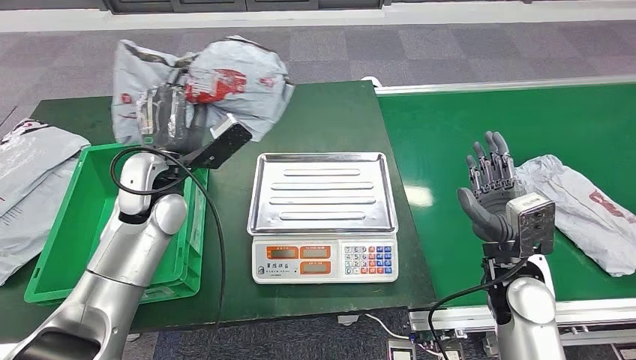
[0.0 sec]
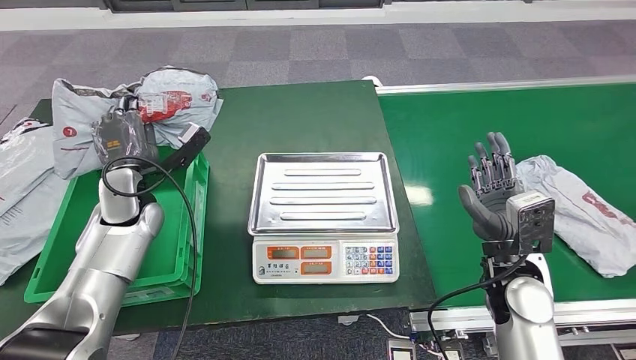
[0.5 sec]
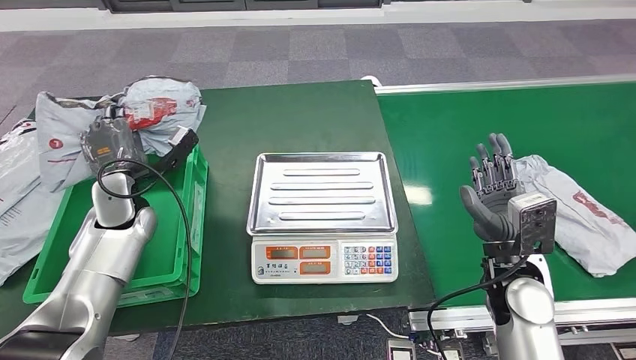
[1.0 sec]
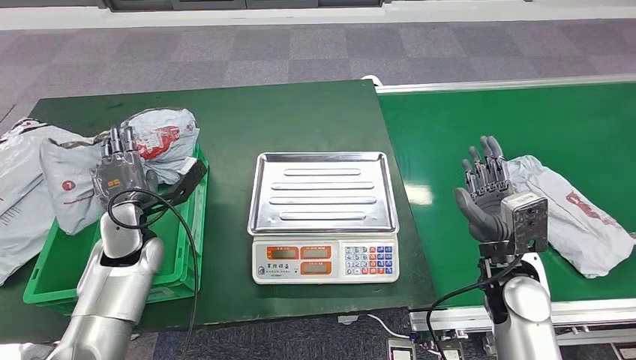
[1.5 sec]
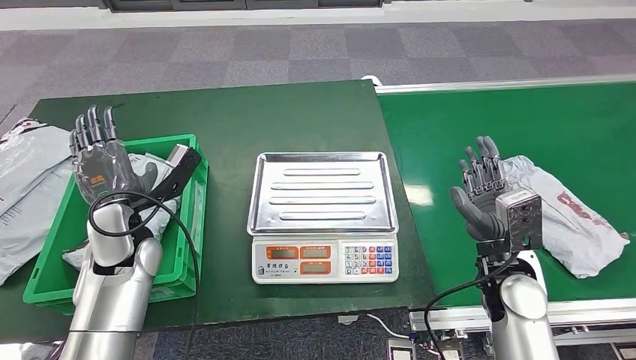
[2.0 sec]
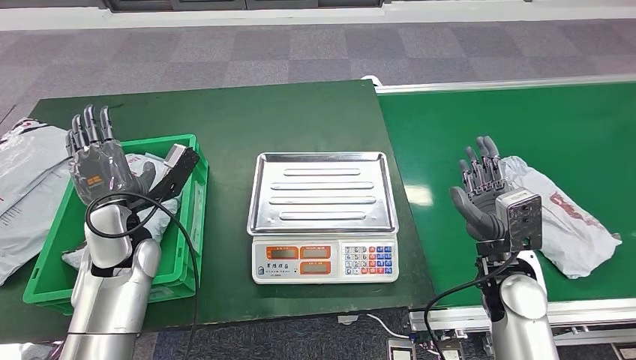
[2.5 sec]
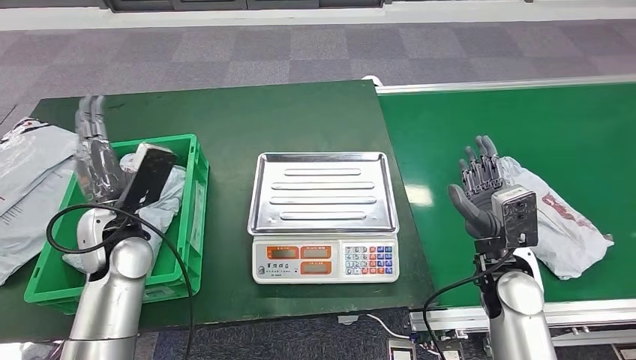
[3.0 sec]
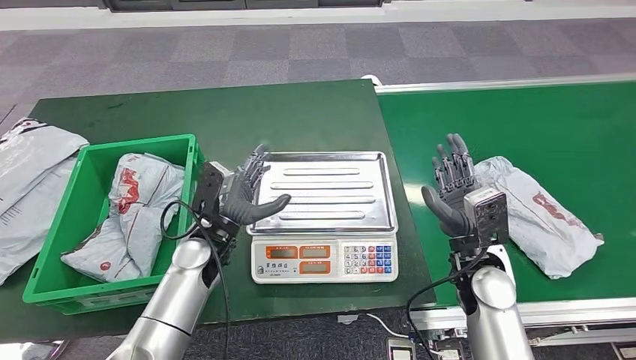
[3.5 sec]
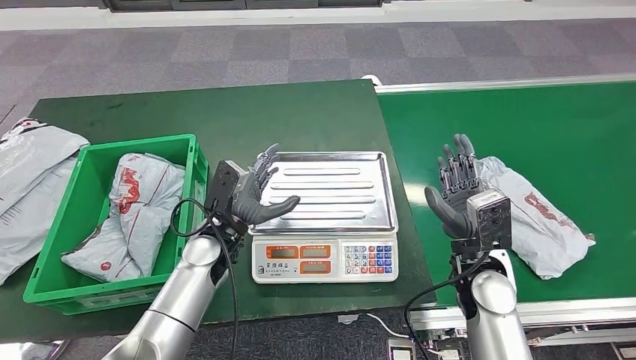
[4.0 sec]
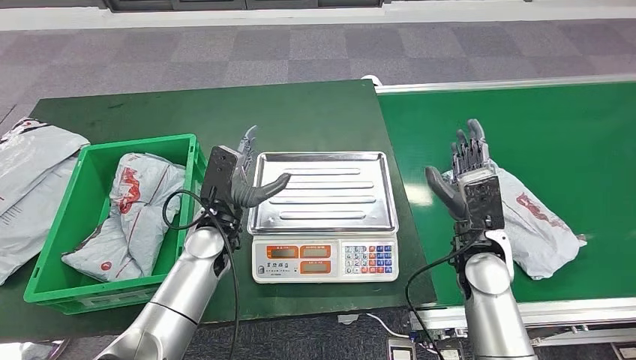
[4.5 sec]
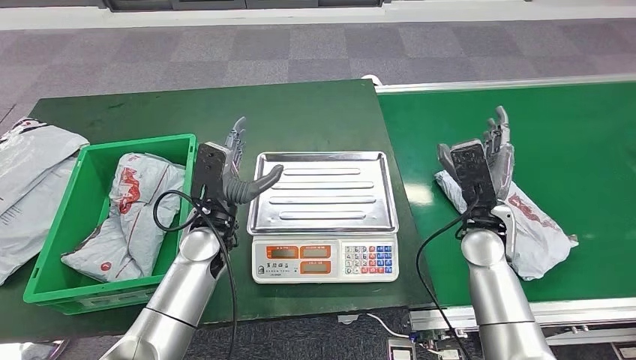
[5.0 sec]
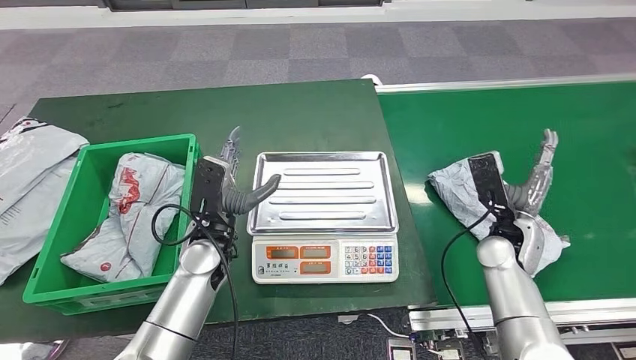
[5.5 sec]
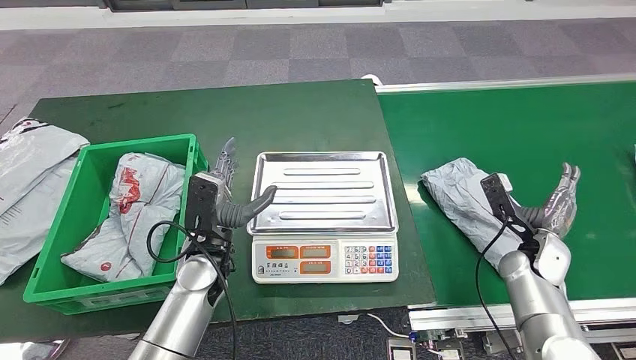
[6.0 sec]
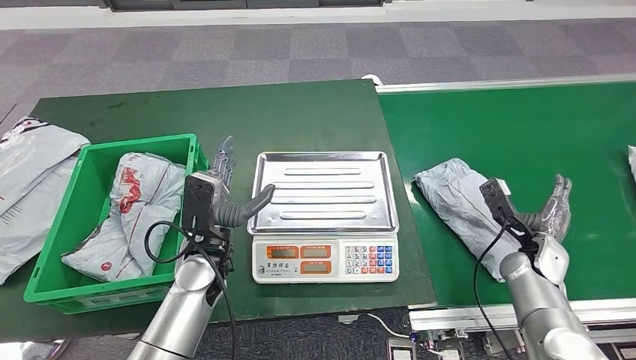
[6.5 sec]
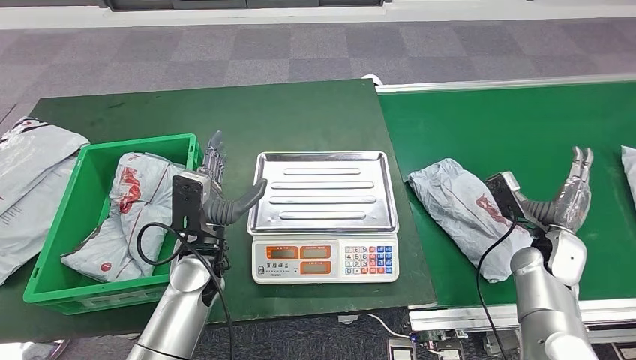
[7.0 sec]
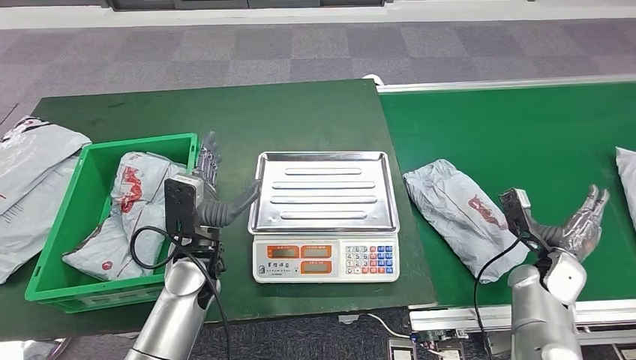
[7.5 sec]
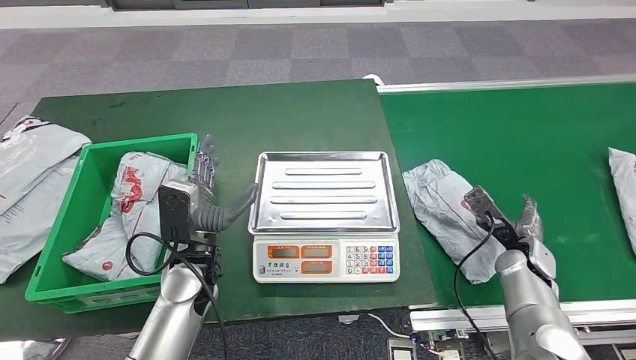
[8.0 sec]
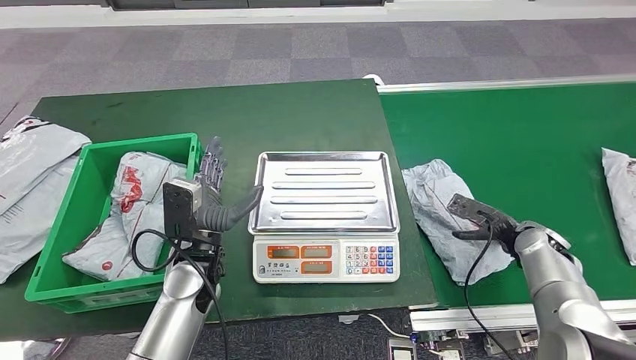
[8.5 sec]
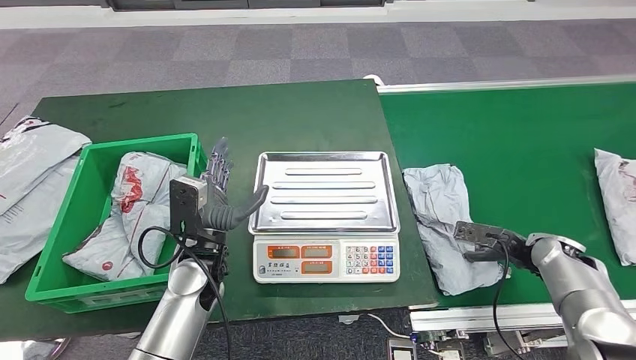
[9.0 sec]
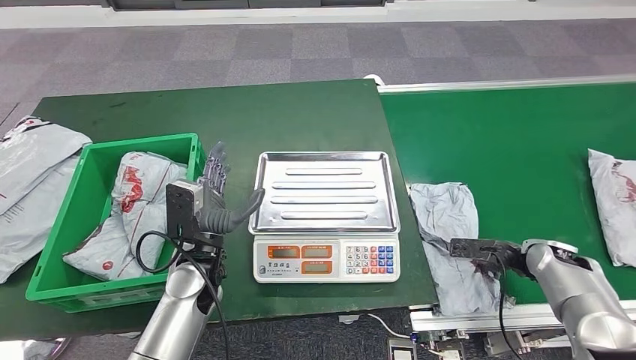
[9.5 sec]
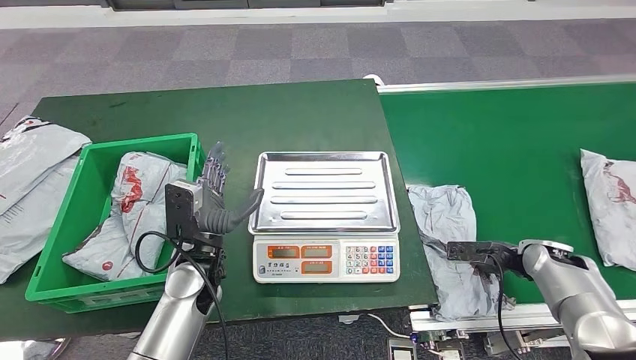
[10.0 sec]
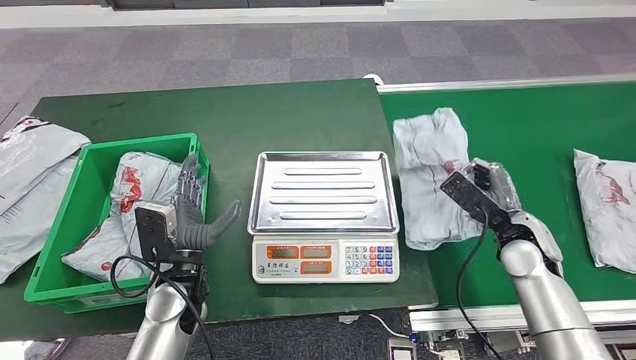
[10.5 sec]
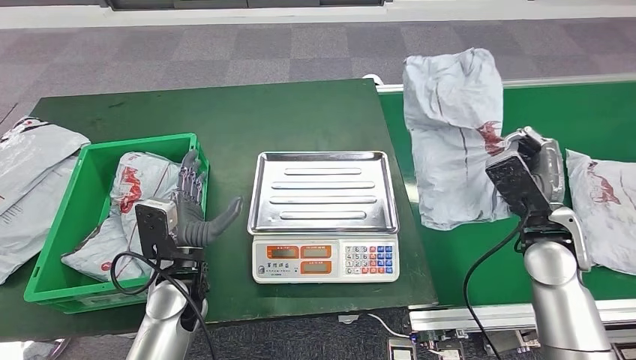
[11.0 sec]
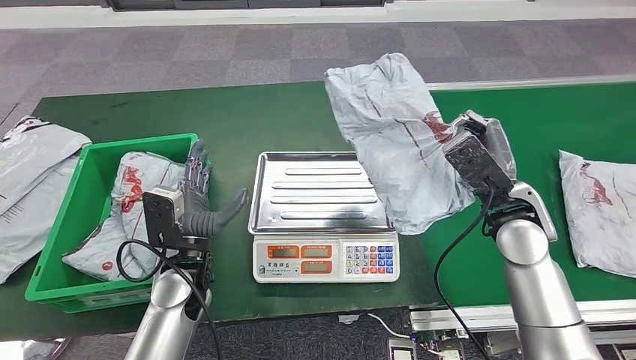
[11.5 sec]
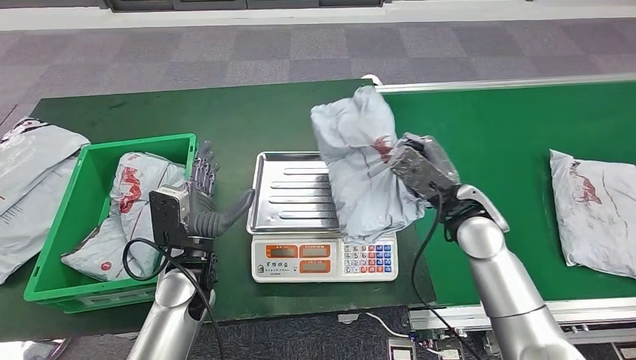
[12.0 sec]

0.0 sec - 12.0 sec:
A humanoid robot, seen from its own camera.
4.0 sec - 6.0 sec: The right hand travels to the right and downward by some 15 cm.
8.0 sec - 10.0 sec: The right hand travels to the right by some 5 cm.

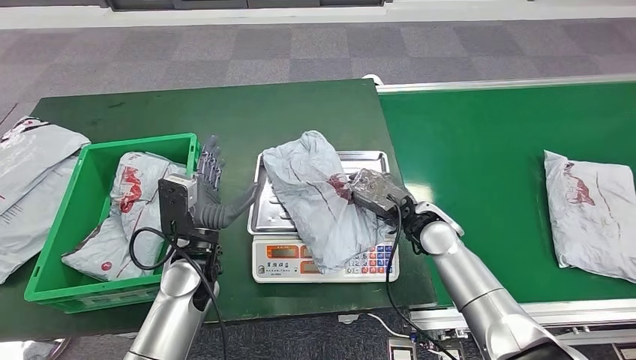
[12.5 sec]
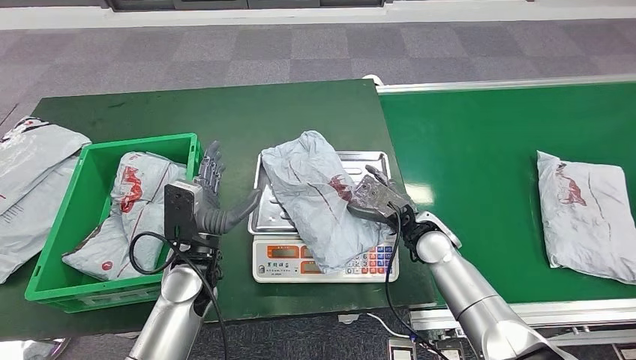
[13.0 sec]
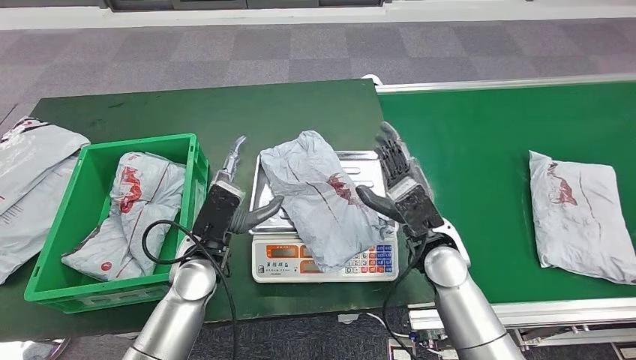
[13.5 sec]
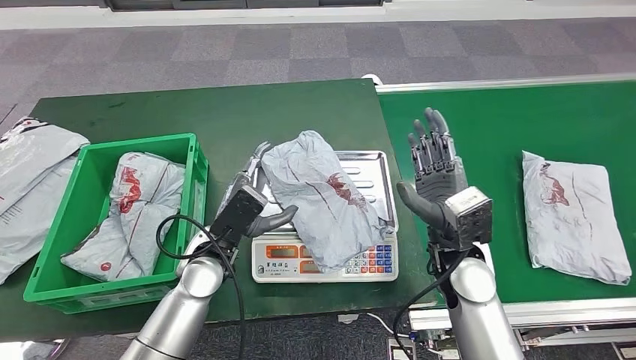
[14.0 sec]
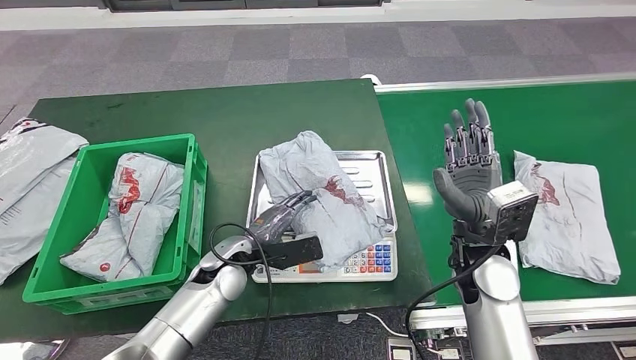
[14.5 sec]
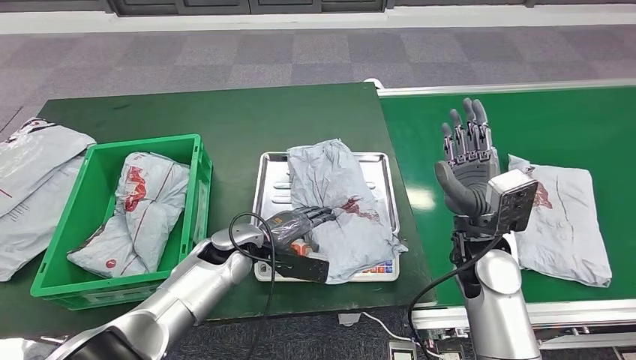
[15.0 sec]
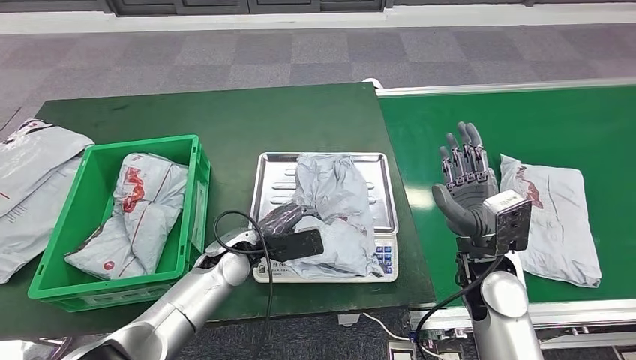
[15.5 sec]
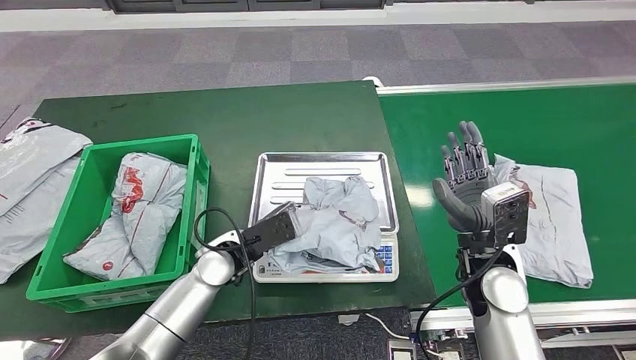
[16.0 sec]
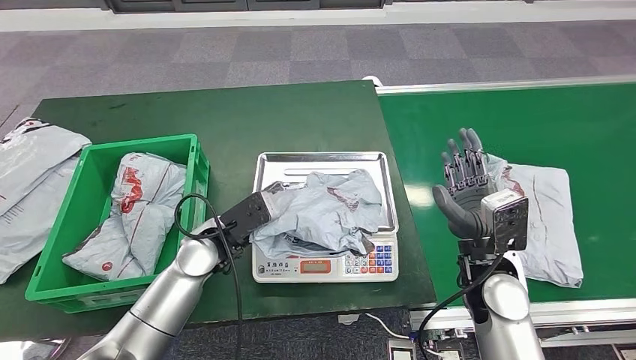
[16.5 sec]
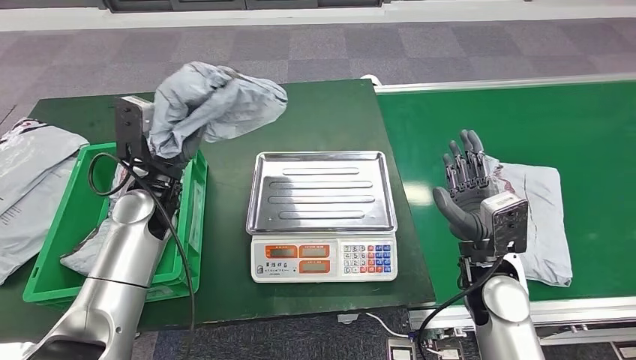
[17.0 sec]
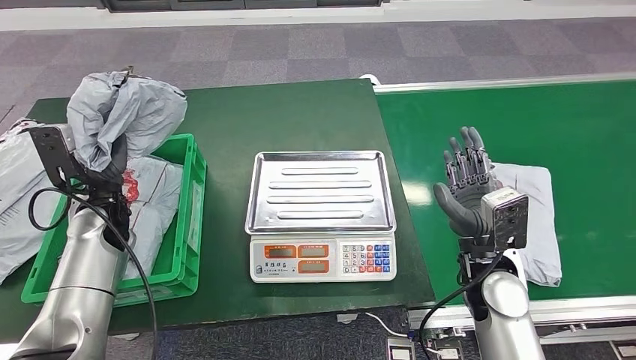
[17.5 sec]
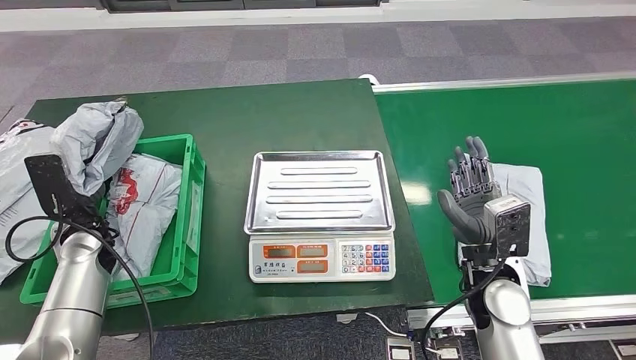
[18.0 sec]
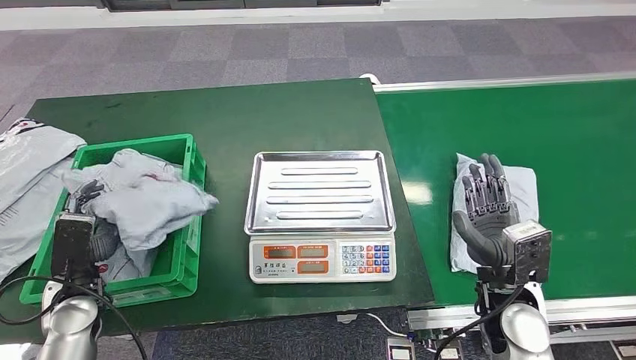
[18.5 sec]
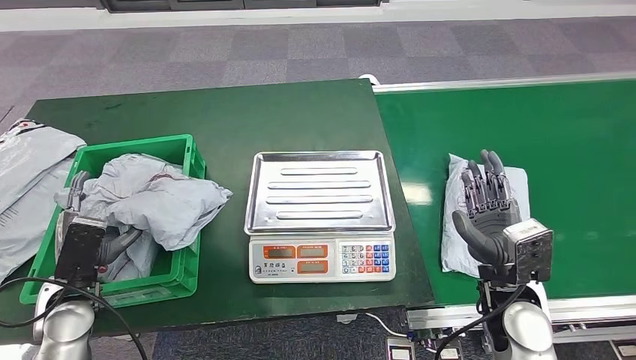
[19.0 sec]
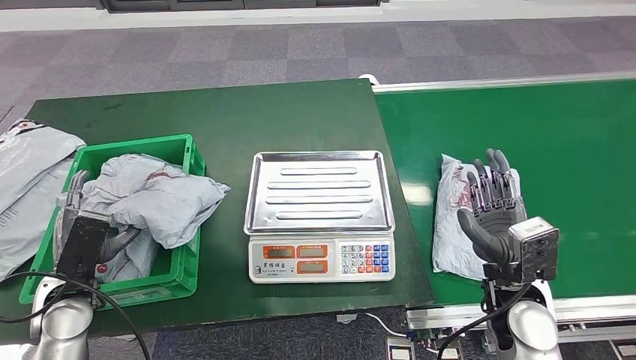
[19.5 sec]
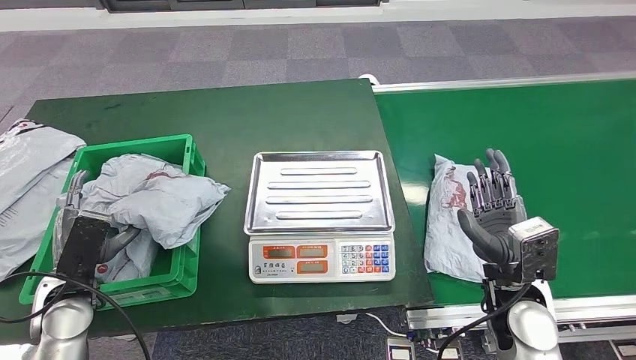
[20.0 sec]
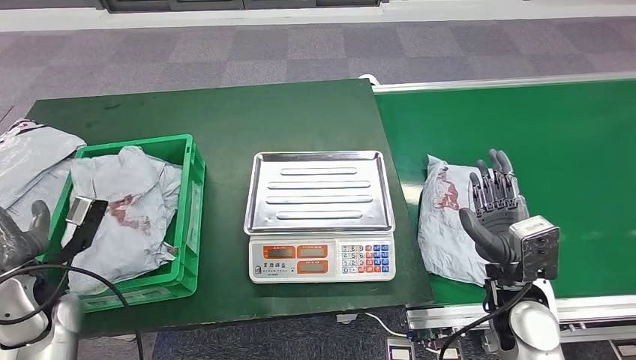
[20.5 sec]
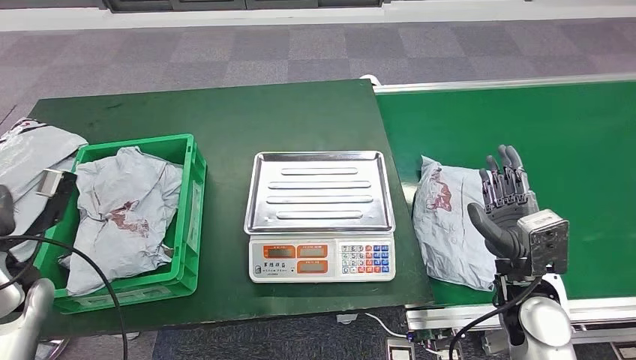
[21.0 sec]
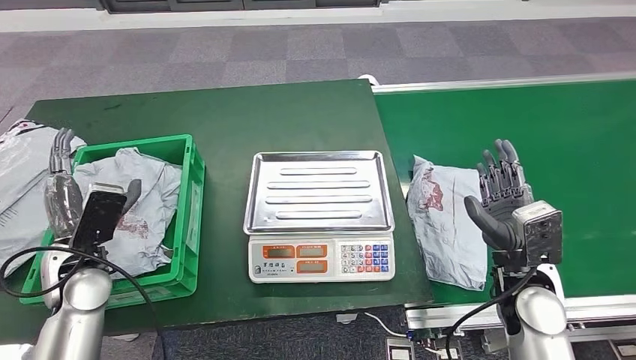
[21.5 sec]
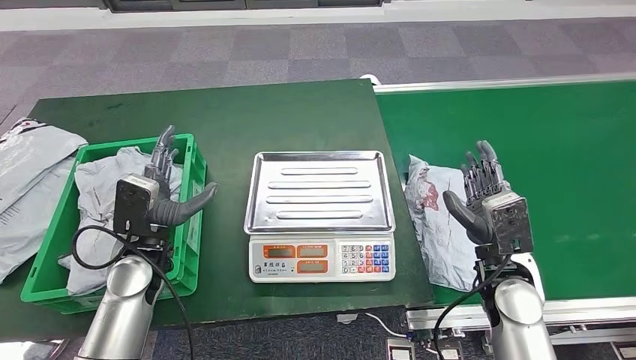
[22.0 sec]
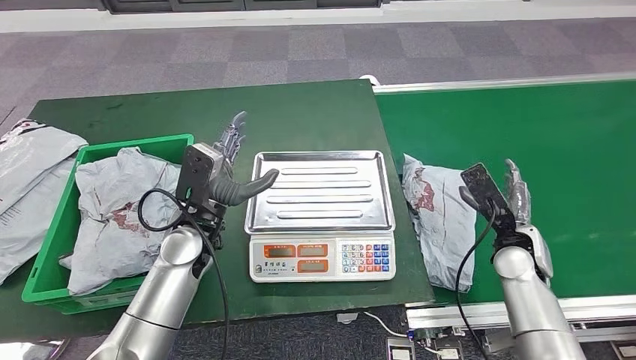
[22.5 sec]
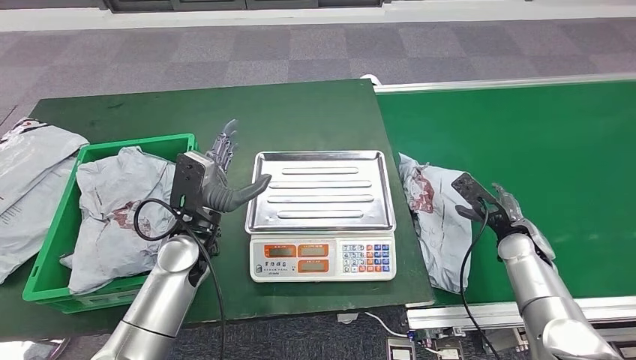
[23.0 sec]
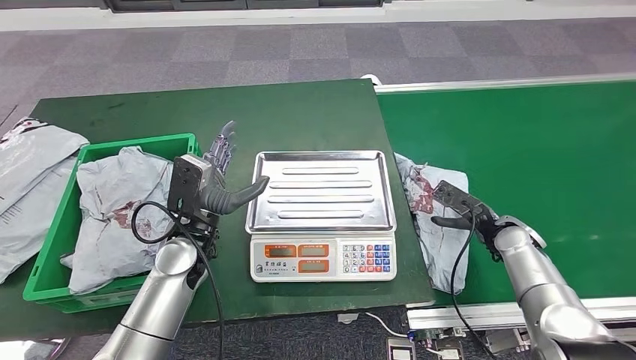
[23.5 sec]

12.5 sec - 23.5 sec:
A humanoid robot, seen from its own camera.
18.0 sec - 20.0 sec: The left hand heads backward, covering approximately 10 cm.
20.0 sec - 21.5 sec: The left hand travels to the left and back again, roughly 5 cm each way.
